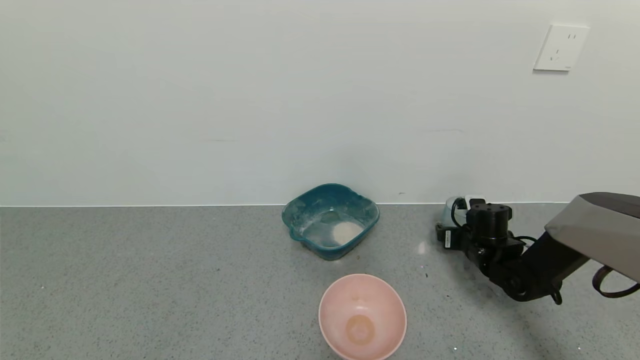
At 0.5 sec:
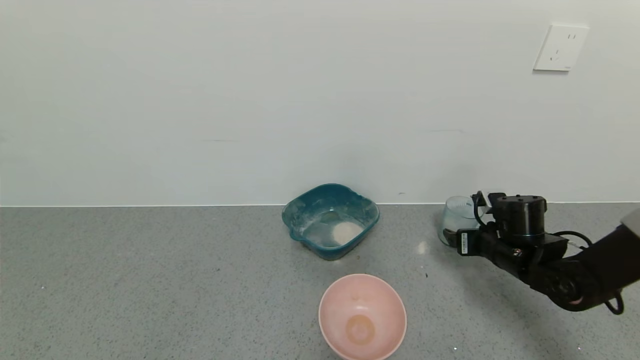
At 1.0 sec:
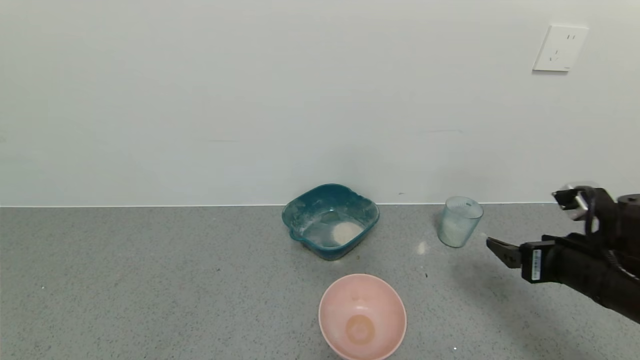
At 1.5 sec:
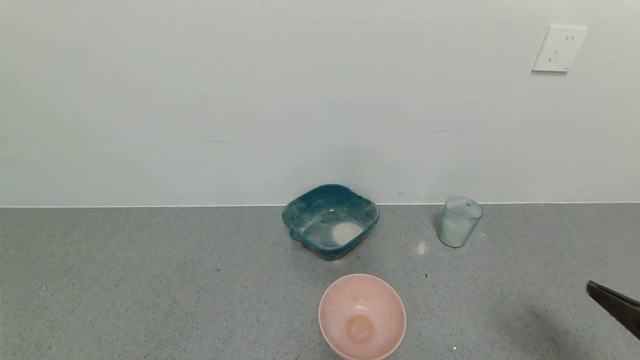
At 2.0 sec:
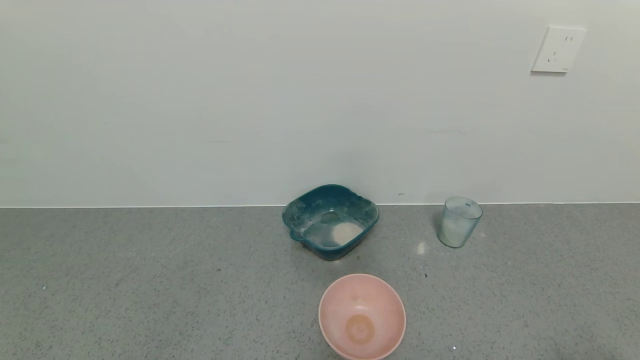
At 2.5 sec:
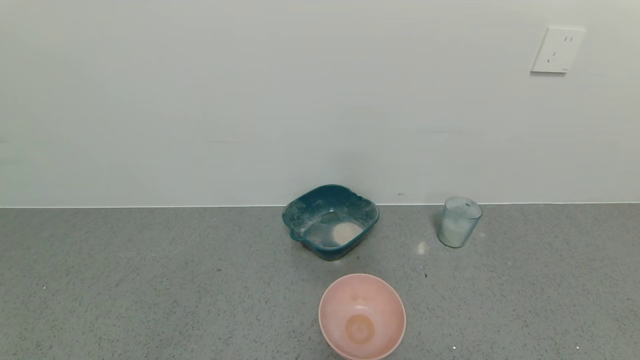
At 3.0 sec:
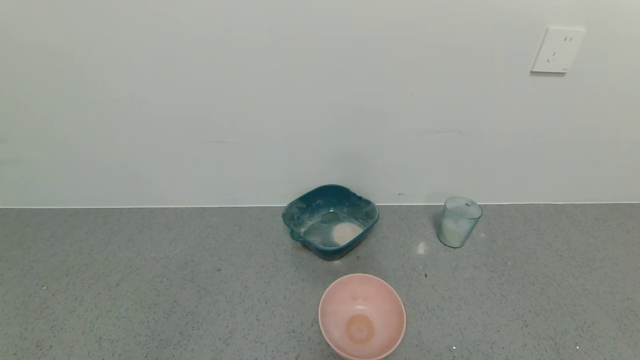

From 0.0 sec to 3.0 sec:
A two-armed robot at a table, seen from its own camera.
Task of the whole recording: use a gripper to pick up the cup and pour the powder into a bowl or tray.
From 0.0 sec to 1.5 sec: The right gripper is displaced backward and upward by roughly 35 cm.
From 1.5 sec to 3.0 sec: The right gripper heads backward and downward, covering roughly 15 cm.

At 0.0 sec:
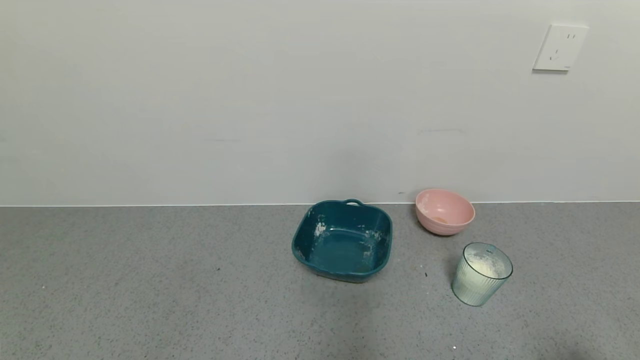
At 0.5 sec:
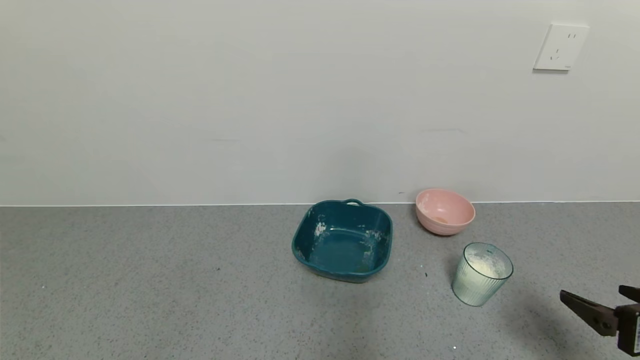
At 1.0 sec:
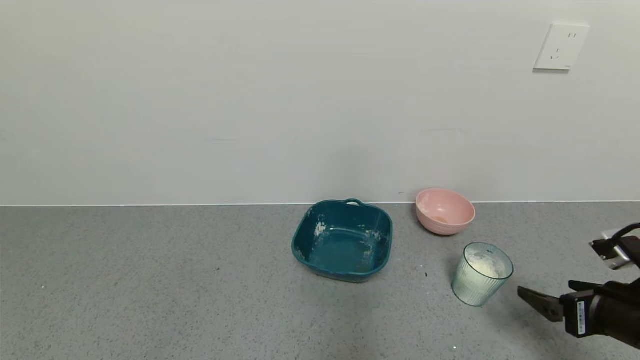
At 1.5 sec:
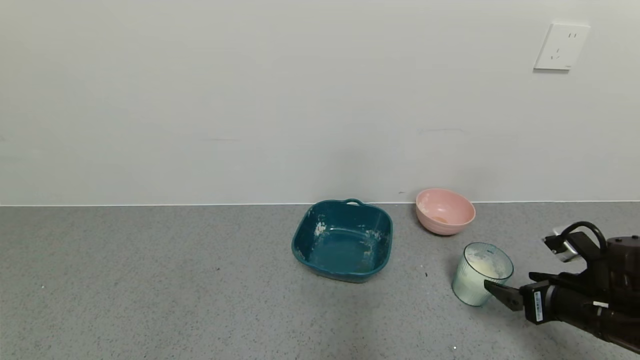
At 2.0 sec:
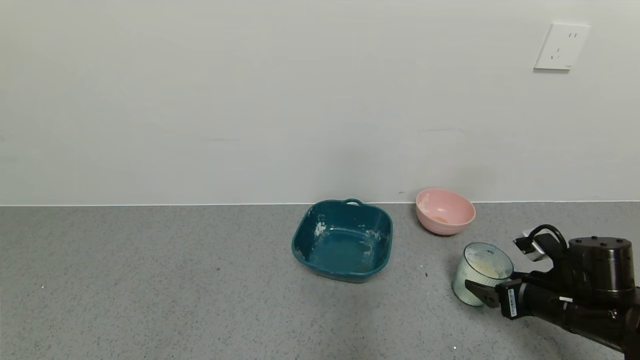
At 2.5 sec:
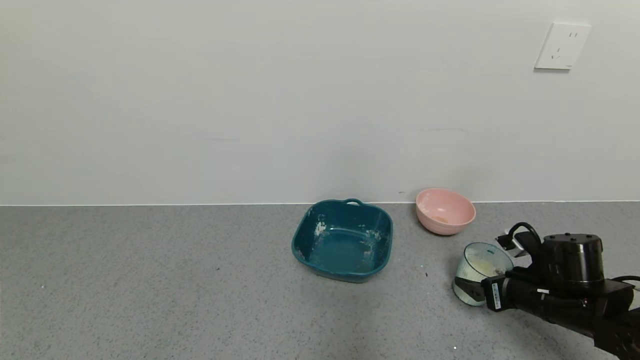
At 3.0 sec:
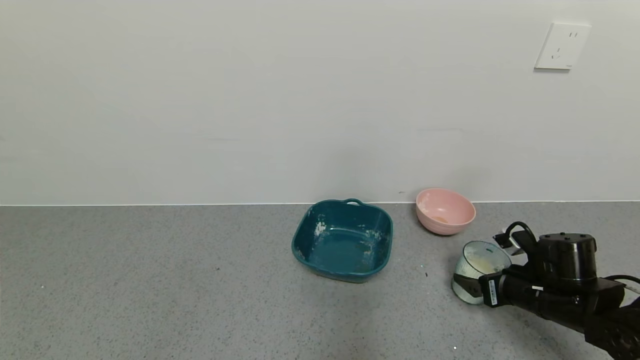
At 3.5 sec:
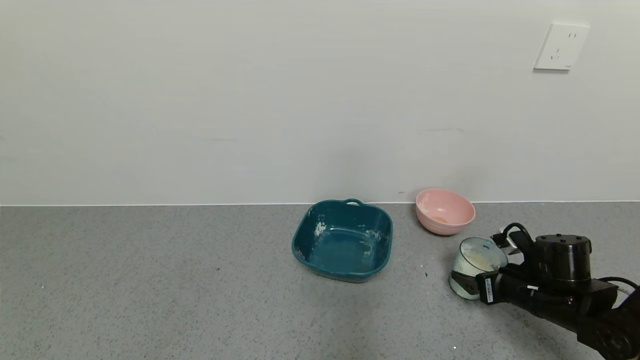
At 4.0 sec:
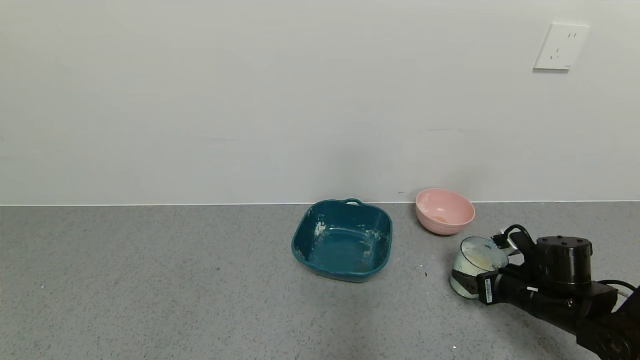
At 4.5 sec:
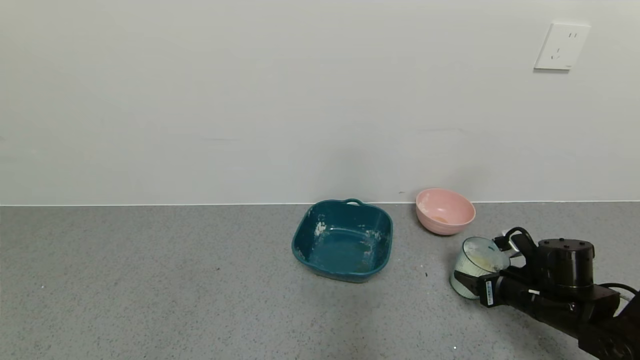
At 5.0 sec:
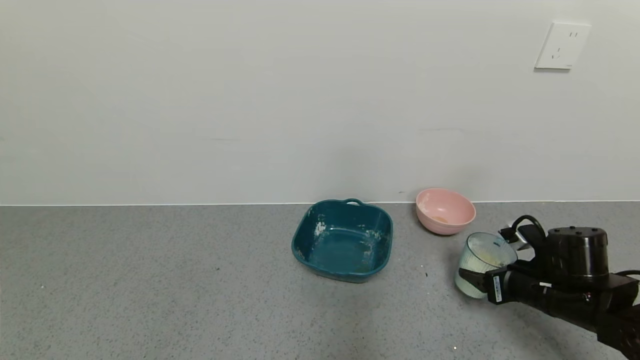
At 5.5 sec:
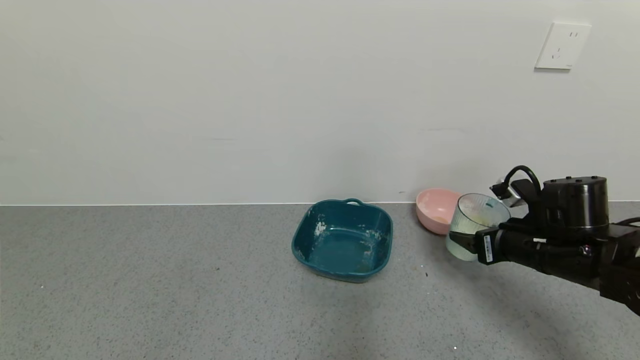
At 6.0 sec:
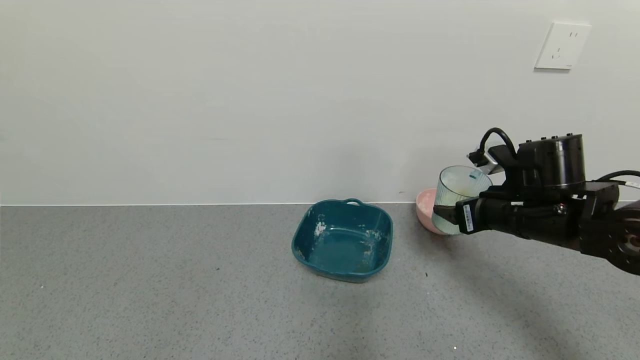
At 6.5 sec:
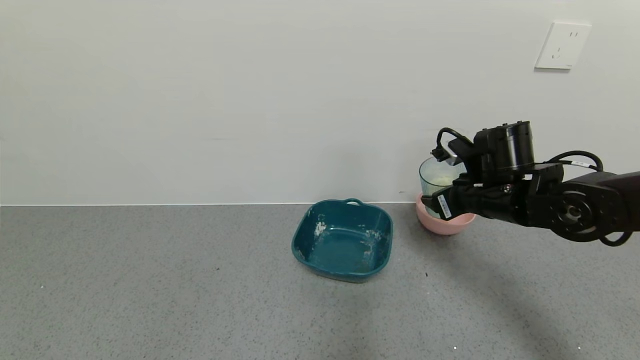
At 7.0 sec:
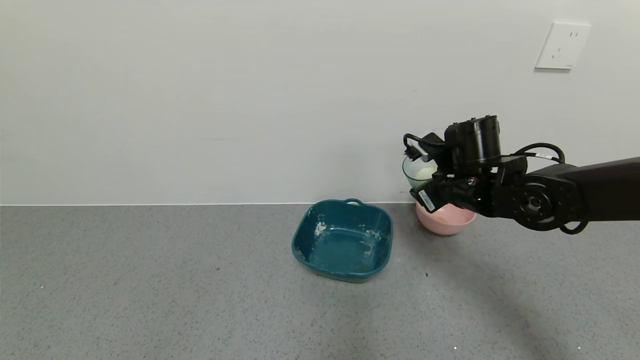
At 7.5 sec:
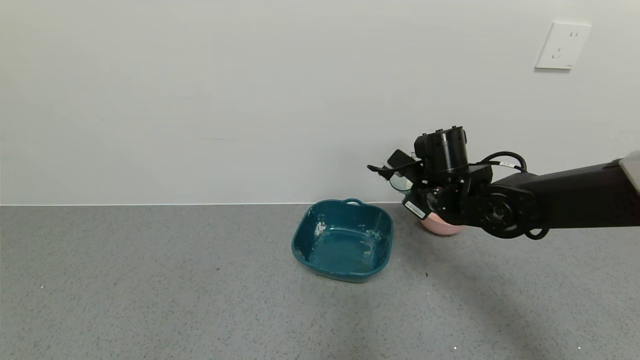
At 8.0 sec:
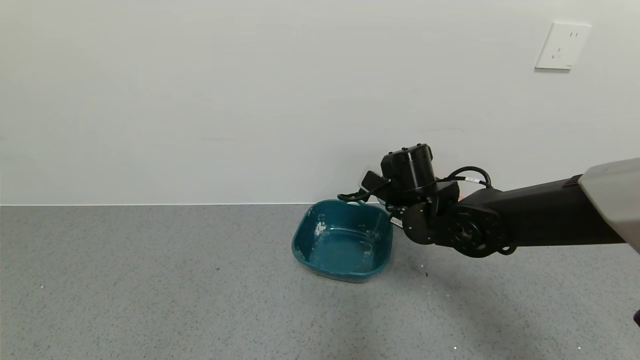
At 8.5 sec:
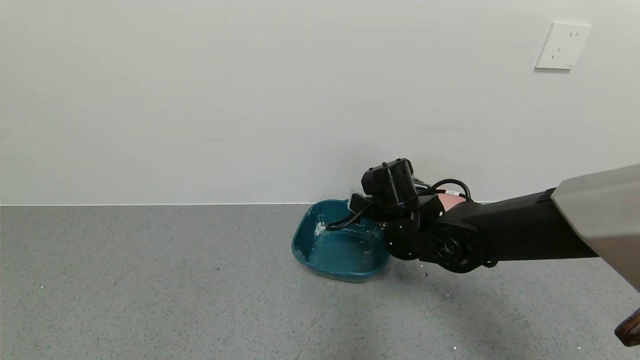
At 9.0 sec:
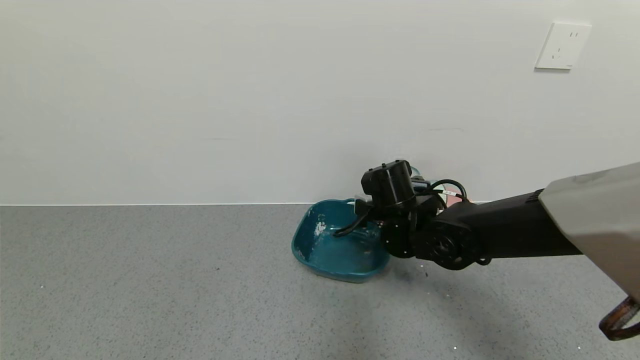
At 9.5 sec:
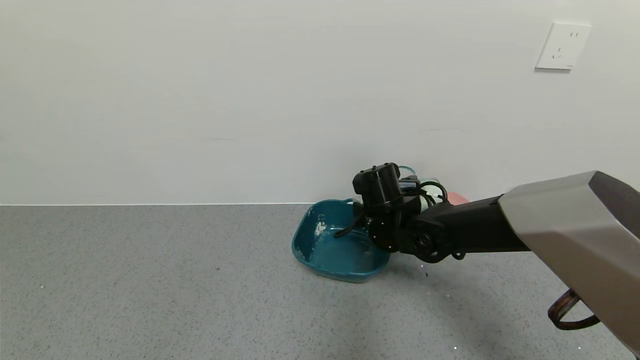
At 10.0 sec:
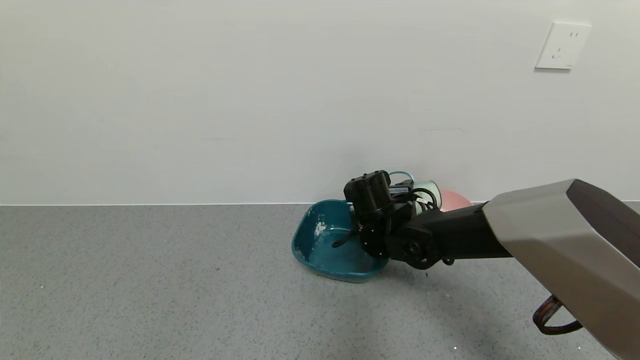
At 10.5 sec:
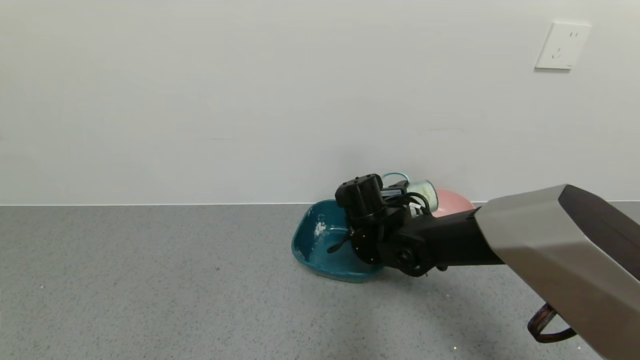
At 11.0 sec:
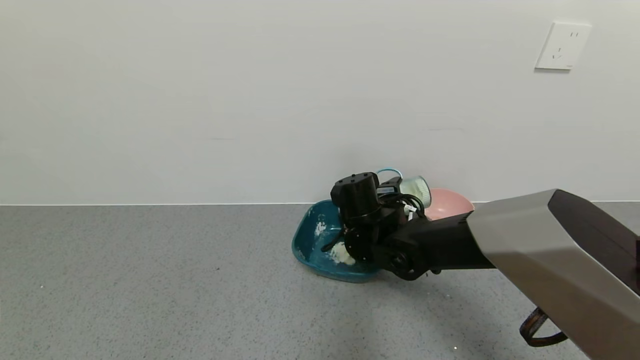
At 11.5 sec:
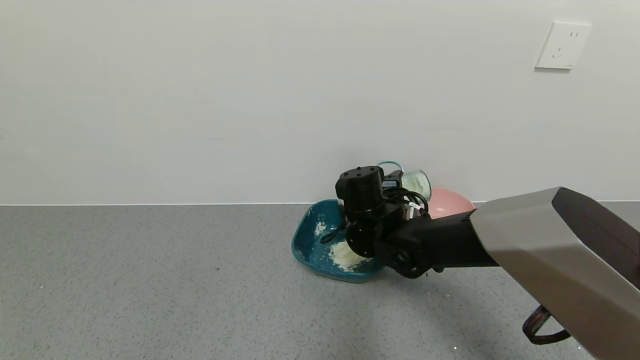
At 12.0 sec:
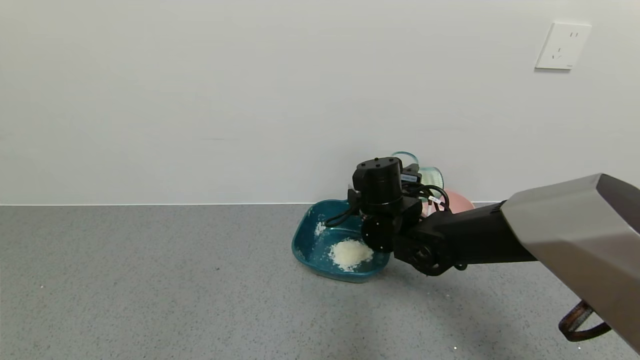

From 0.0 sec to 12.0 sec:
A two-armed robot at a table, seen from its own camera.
Task of the whole recording: use a gripper to pick up the cup and pour the powder into a bowl or tray.
Step, from 0.0 sec to 4.0 sec: Grasp the glass of powder with the right gripper.
From 0.0 sec to 2.0 sec: The right gripper moves forward and downward, some 25 cm.
From 2.0 sec to 4.0 sec: The right gripper changes place by roughly 5 cm, and closes up.
From 4.0 sec to 6.0 sec: The right gripper shifts about 15 cm upward and to the left, and closes up.
From 6.0 sec to 8.0 sec: The right gripper moves to the left, roughly 15 cm.
From 8.0 sec to 10.0 sec: The right gripper moves about 5 cm.
From 10.0 sec to 12.0 sec: There are only small adjustments of the grippers.

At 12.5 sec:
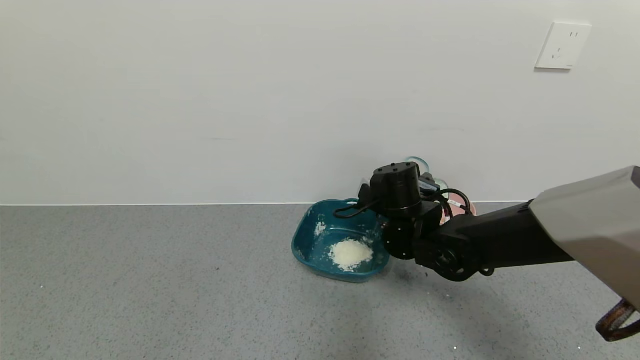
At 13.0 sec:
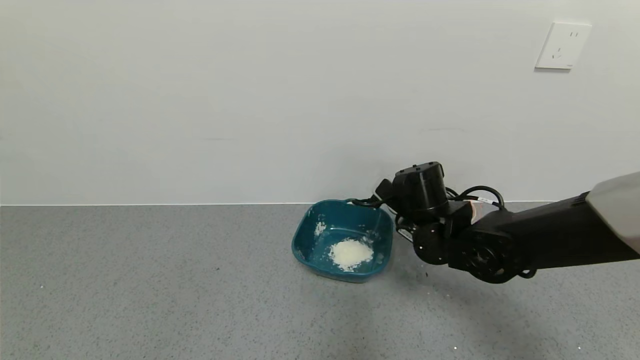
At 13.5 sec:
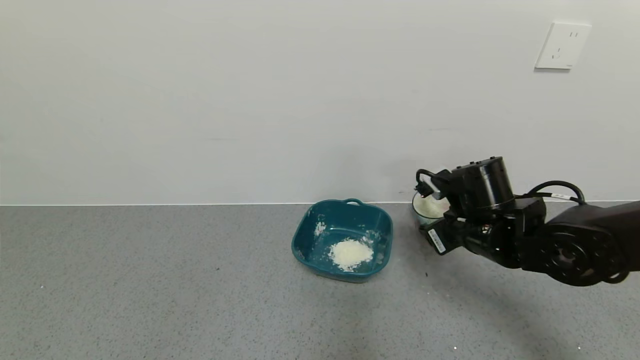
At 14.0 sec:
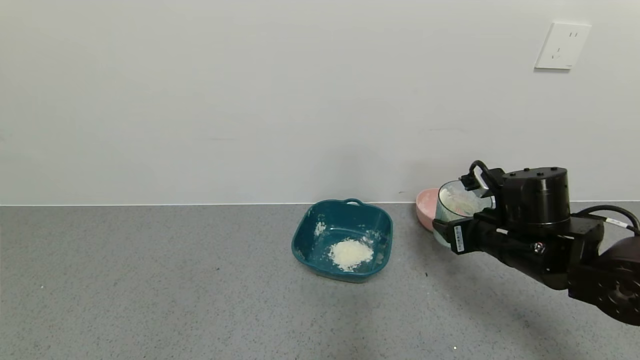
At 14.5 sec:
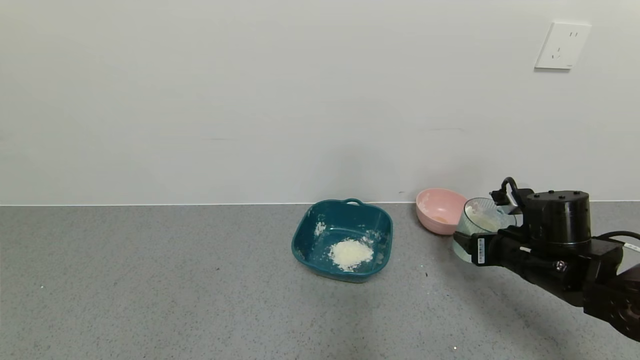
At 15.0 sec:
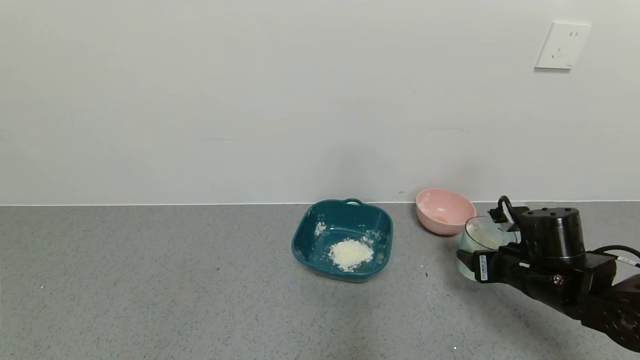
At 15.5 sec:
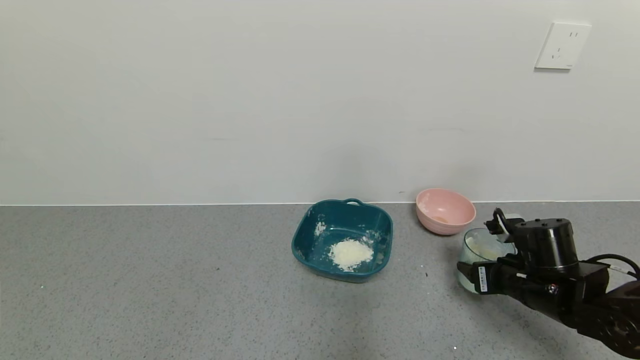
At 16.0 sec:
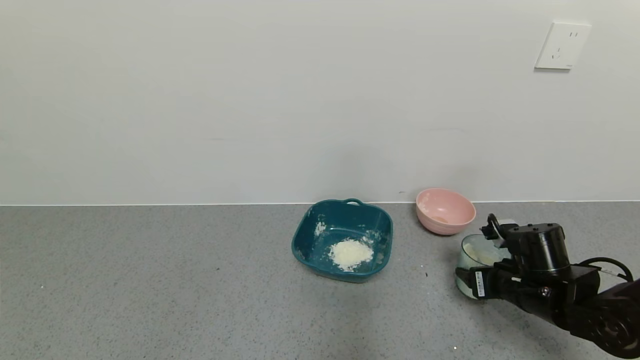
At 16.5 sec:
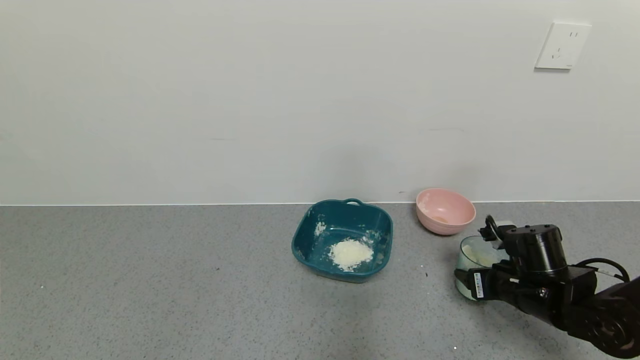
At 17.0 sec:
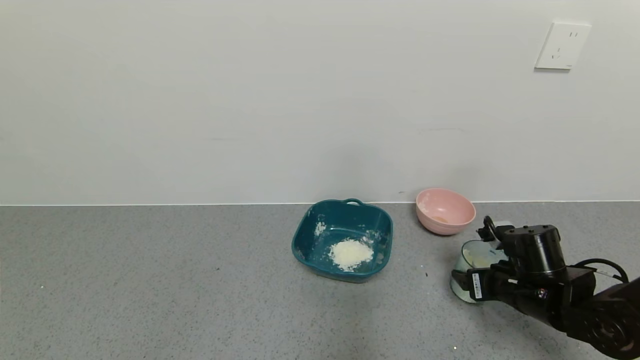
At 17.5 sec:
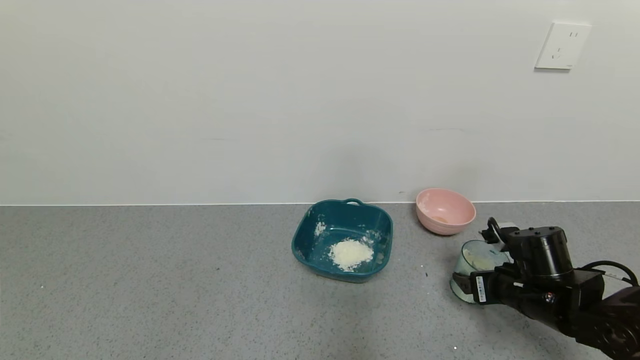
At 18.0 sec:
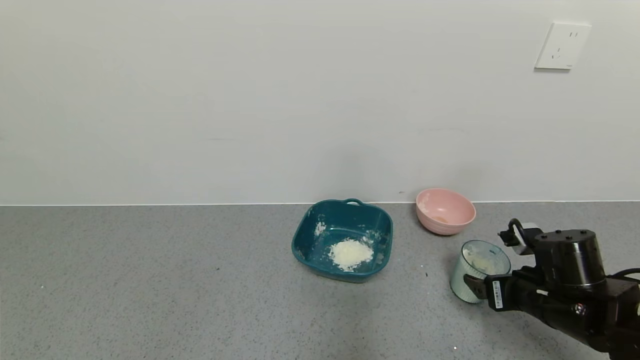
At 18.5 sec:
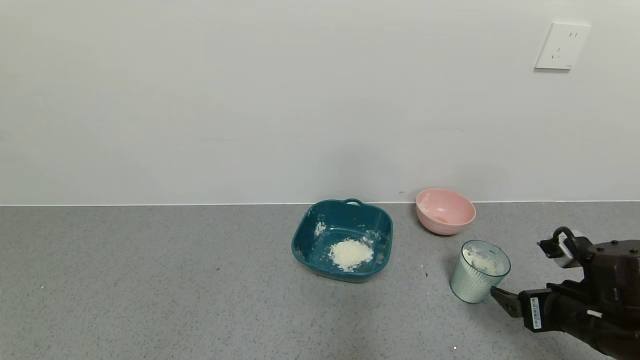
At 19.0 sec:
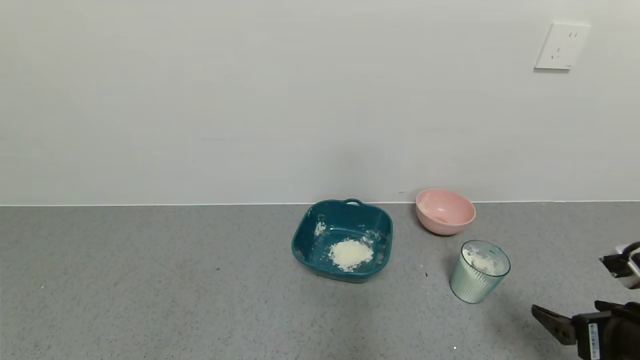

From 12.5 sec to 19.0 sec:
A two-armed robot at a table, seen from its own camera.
Task of the whole recording: use a gripper to pick up the cup and pour the powder into a bowl or tray.
Step, from 13.0 sec to 19.0 sec: Place the glass cup down with the right gripper.
From 12.5 sec to 14.5 sec: The right gripper goes about 20 cm to the right and backward.
From 14.5 sec to 17.0 sec: The right gripper shifts about 5 cm downward, and opens its fingers.
From 17.0 sec to 19.0 sec: The right gripper travels backward and upward by some 15 cm, and opens its fingers.
